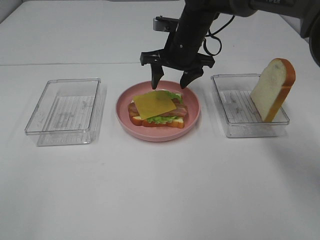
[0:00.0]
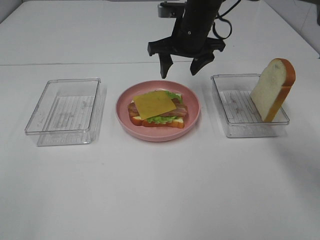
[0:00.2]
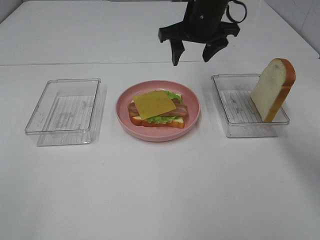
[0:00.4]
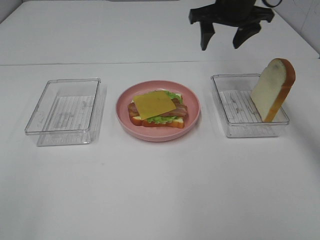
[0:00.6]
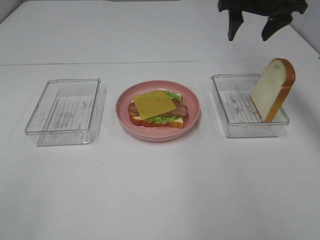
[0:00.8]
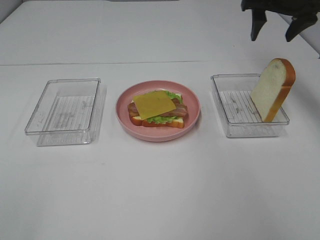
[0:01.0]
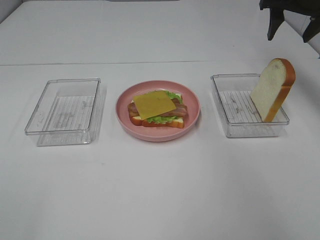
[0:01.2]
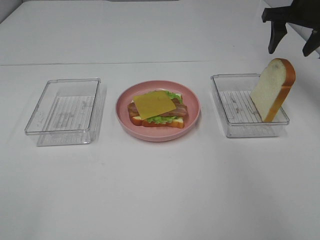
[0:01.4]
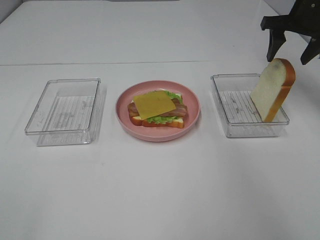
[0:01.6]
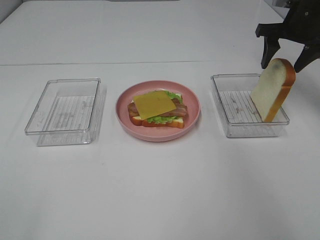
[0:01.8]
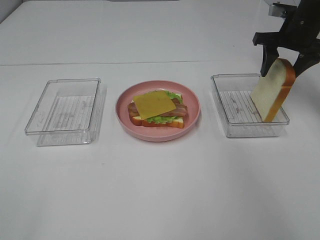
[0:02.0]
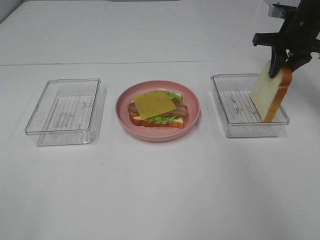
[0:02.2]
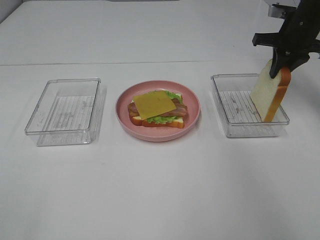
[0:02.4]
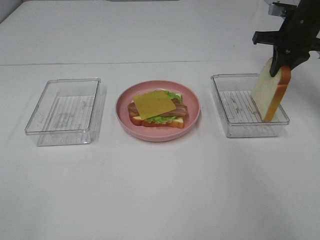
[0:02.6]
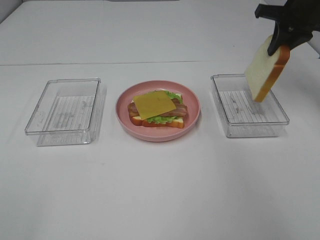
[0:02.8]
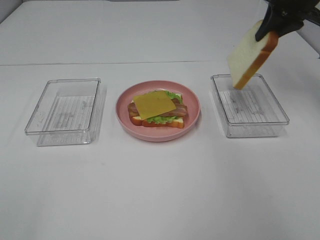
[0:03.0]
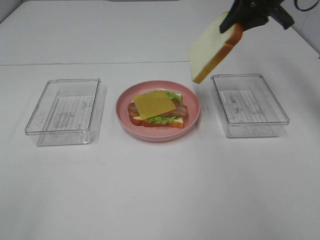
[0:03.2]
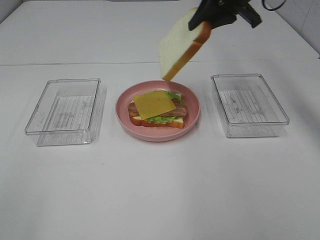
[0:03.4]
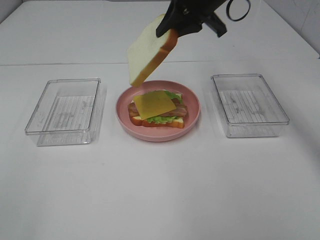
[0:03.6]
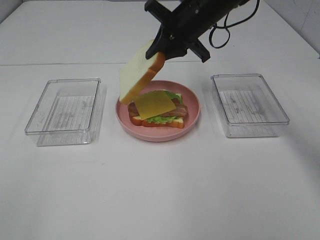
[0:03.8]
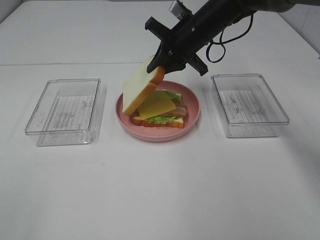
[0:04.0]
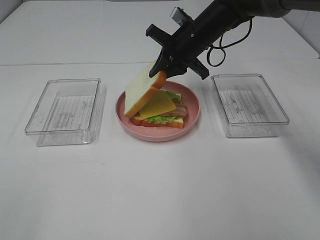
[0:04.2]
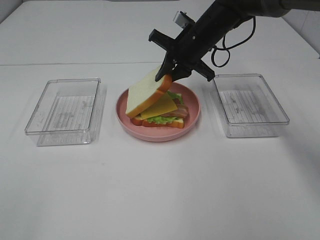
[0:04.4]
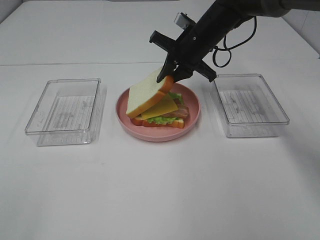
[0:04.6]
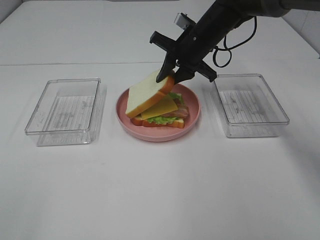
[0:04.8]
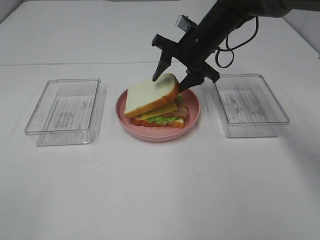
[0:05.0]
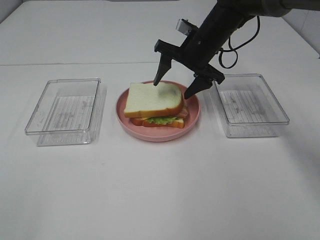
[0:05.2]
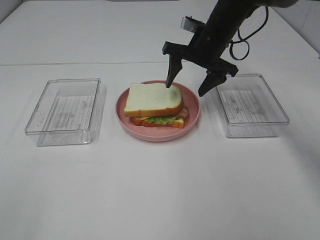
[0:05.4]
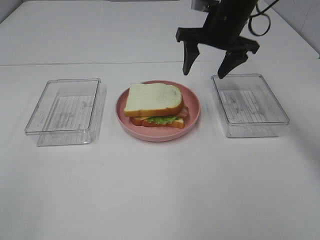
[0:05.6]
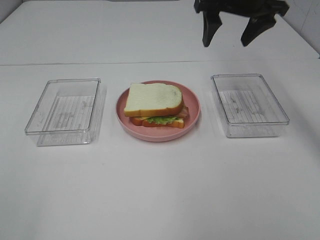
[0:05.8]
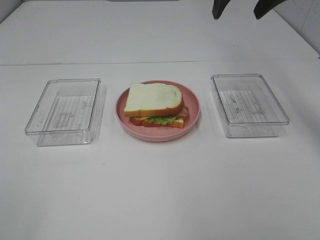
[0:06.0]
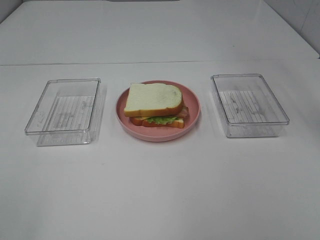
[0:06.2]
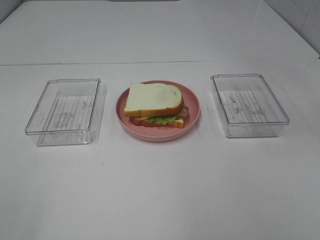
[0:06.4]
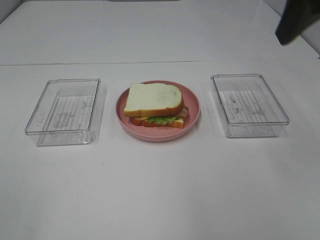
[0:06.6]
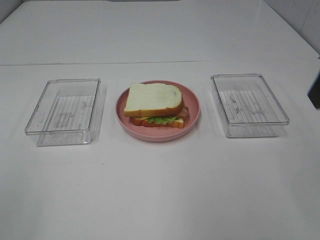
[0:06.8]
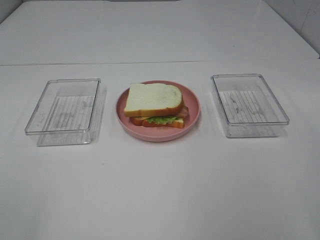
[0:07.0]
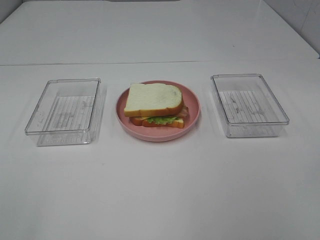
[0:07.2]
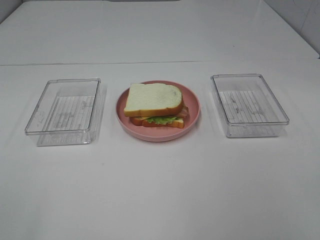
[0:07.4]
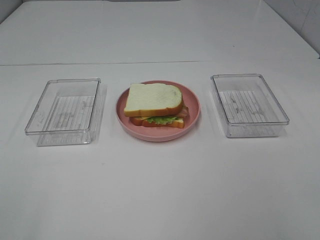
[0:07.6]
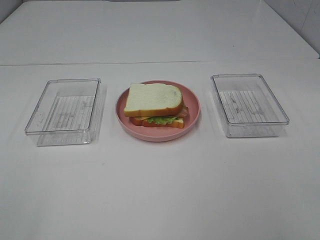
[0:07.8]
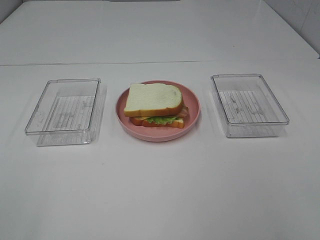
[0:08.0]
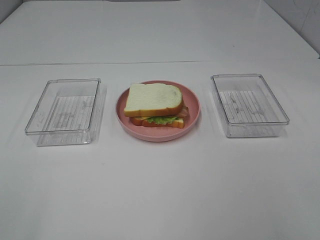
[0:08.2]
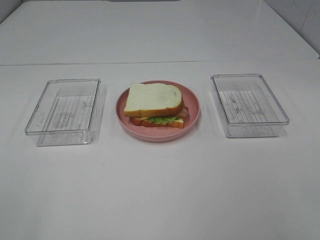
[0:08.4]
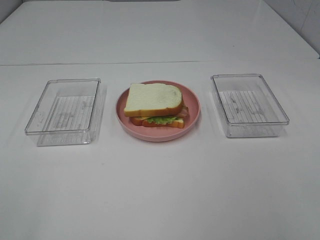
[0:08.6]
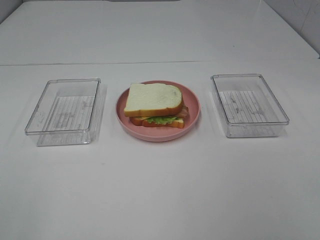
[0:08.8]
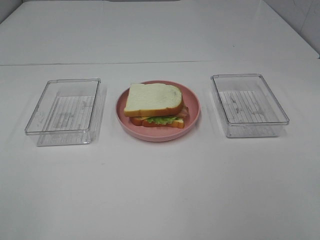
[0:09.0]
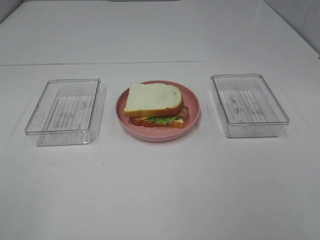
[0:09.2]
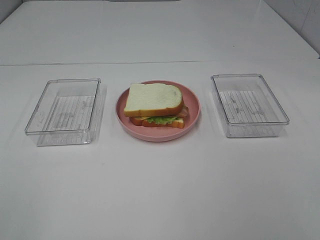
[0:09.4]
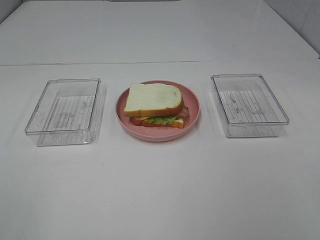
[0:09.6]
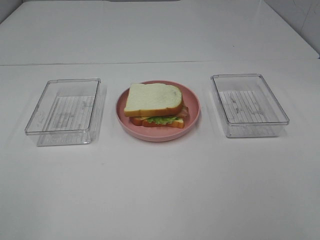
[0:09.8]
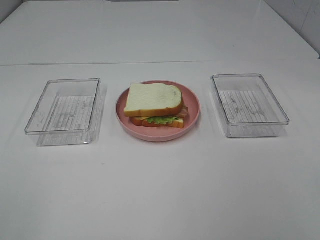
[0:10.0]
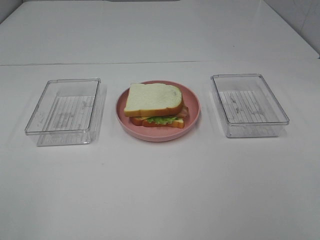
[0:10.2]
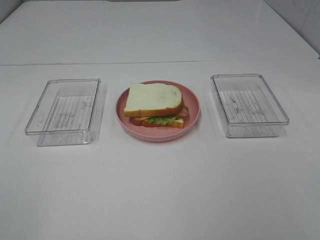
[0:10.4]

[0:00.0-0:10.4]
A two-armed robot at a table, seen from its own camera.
Task of the whole recording: Make sandwiches.
Step, 0:00.0 to 0:02.4: Right hand:grab the bread slice.
Step, 0:02.6 to 0:05.4: Right hand:place the bread slice on the cheese slice.
0:00.0 to 0:01.4: The right gripper is displaced to the right by some 25 cm.
0:01.4 to 0:03.0: The right gripper closes up.
0:03.0 to 0:04.4: The right gripper is displaced to the left and downward by roughly 20 cm.
0:04.4 to 0:06.0: The right gripper heads upward, covering approximately 20 cm, and opens up.
0:06.0 to 0:07.4: The right gripper shifts approximately 35 cm backward.
0:09.0 to 0:10.4: Both grippers stay put.
